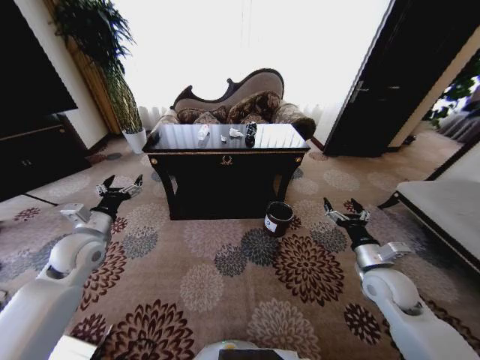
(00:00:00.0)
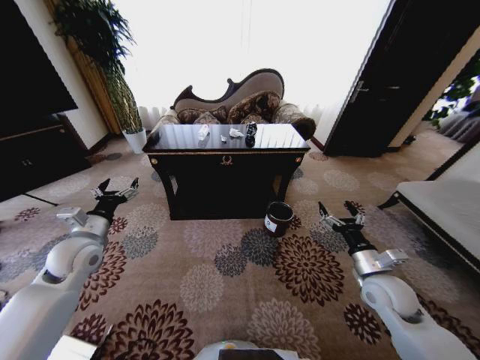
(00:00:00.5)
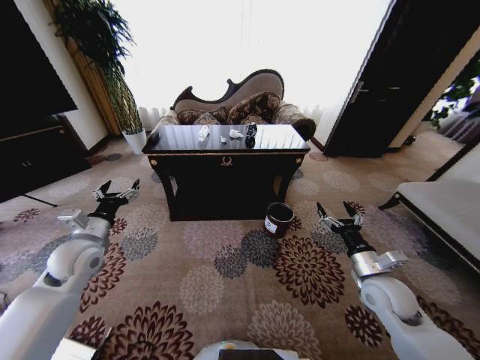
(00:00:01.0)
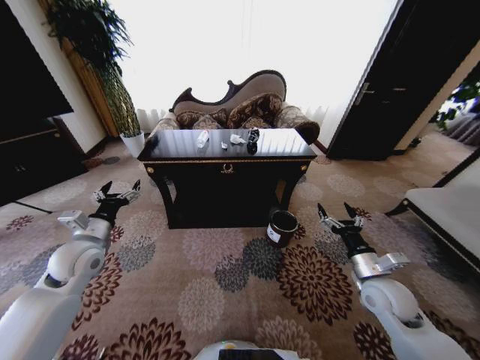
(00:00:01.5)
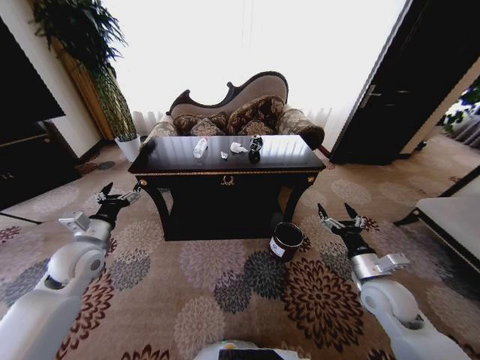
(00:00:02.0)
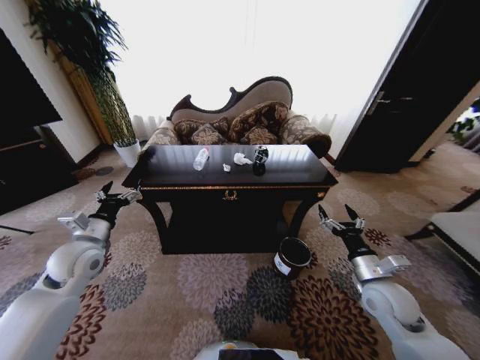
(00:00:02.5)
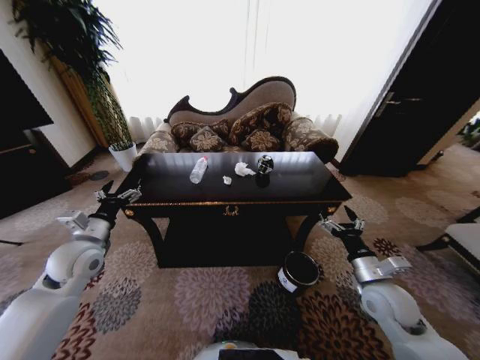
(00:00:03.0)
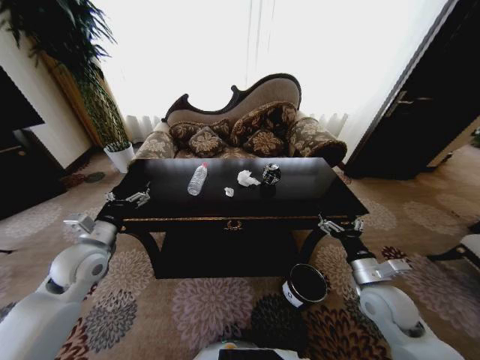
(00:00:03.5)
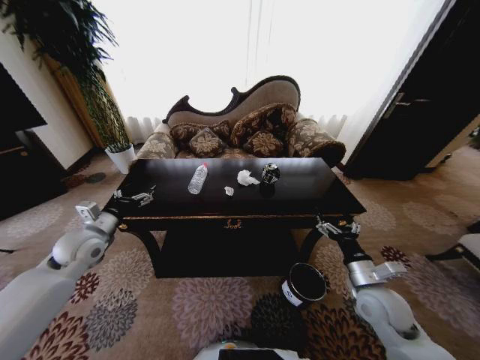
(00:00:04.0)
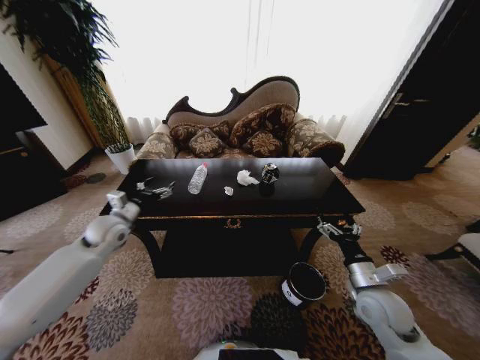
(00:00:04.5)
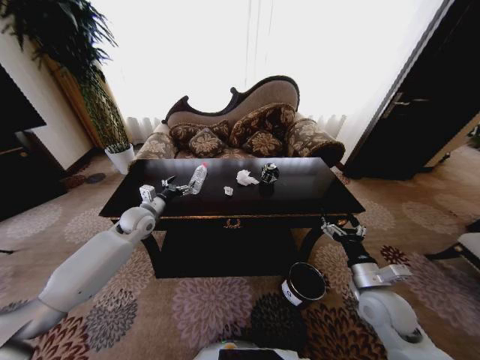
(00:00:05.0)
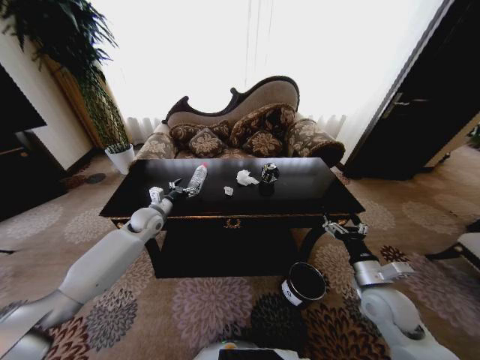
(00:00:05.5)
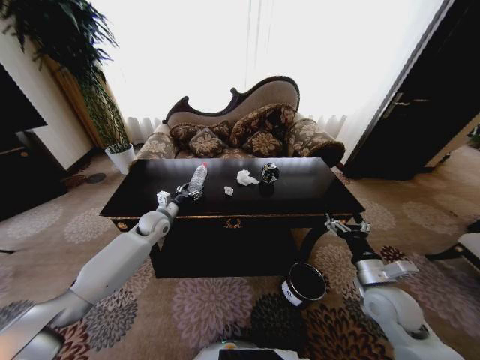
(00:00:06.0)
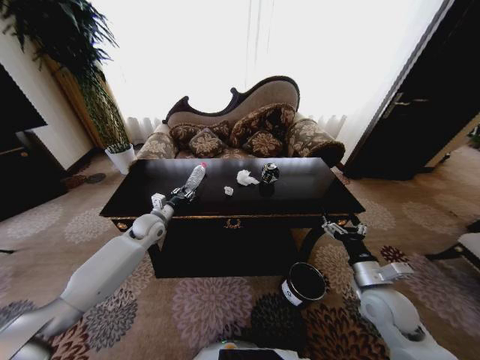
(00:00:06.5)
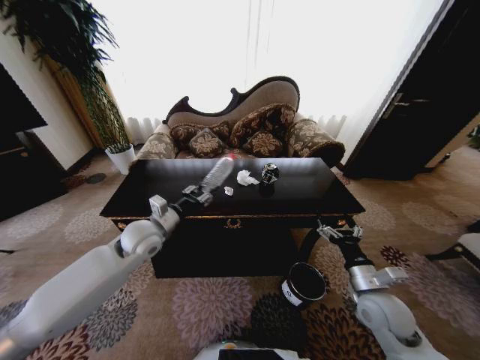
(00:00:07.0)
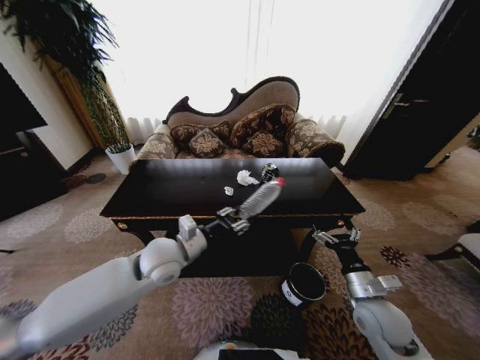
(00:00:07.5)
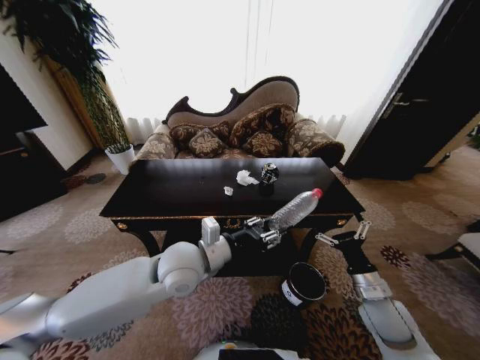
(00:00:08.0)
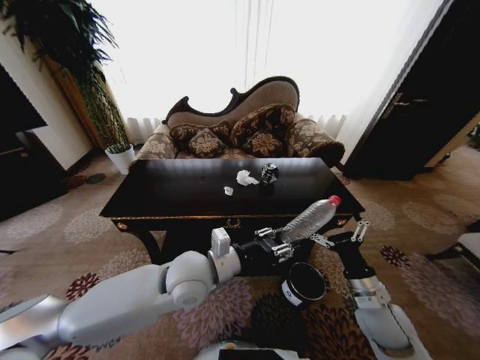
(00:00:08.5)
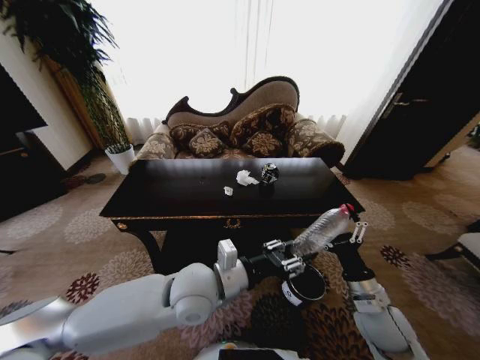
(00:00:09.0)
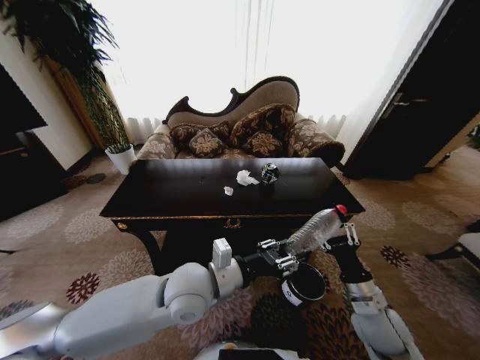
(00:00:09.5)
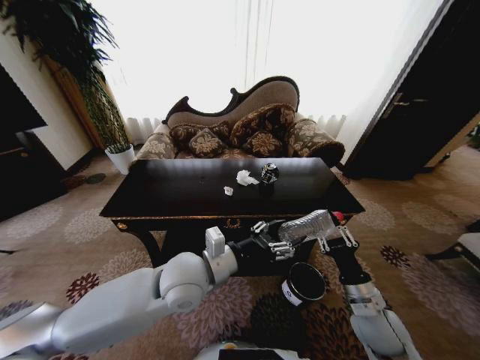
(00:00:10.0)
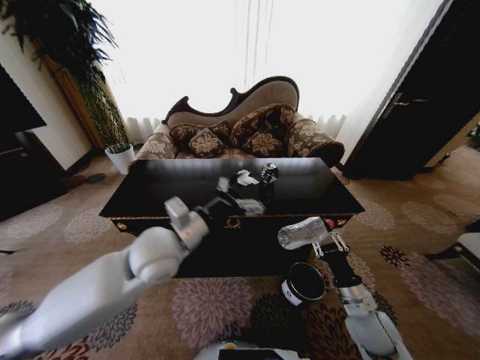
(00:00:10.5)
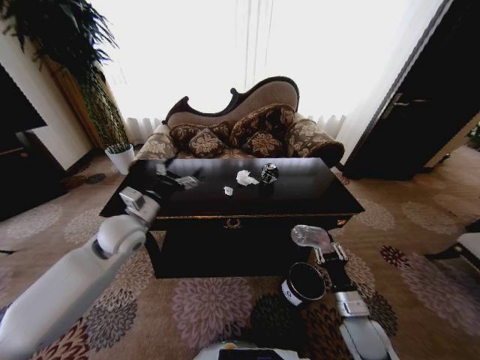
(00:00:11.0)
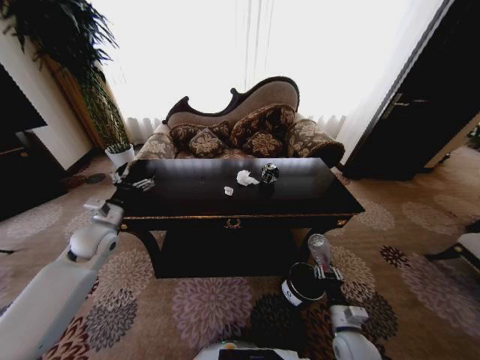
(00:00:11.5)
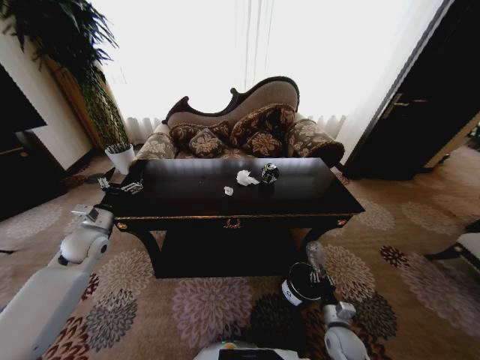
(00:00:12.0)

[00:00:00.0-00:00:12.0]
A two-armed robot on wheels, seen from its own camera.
Task of the whole recording: Move to the front of the table and place the trash on the table into the trash bin.
00:00:04.0 to 00:00:06.0: The left gripper shifts approximately 20 cm forward, to the right and downward, and closes.
00:00:06.0 to 00:00:08.0: The left gripper moves backward, to the right and upward, some 30 cm, and closes its fingers.
00:00:08.0 to 00:00:10.0: The left gripper opens. The right gripper closes its fingers.
00:00:10.0 to 00:00:12.0: The right gripper heads downward, covering about 20 cm; the left gripper is displaced to the left by some 30 cm, and opens up.

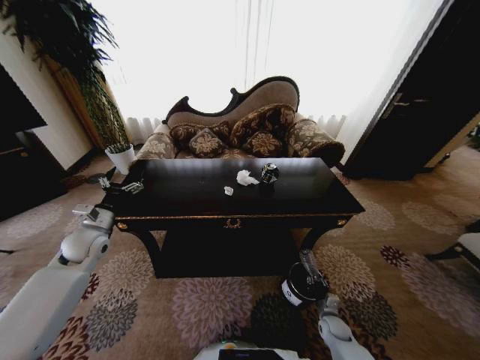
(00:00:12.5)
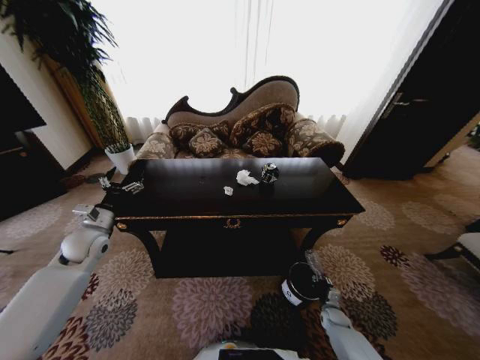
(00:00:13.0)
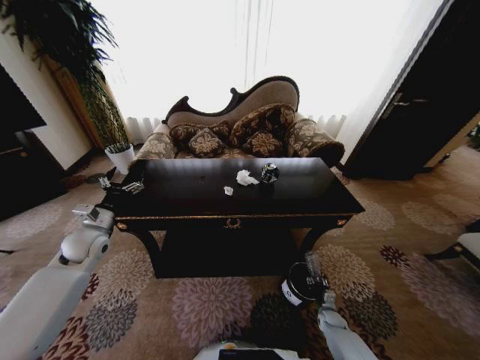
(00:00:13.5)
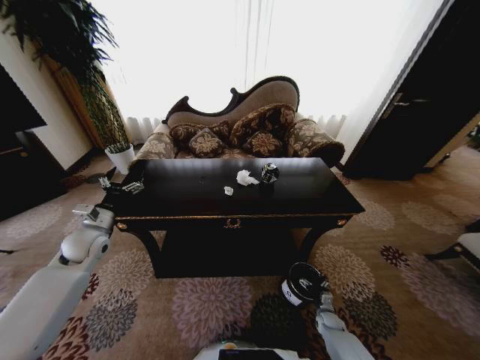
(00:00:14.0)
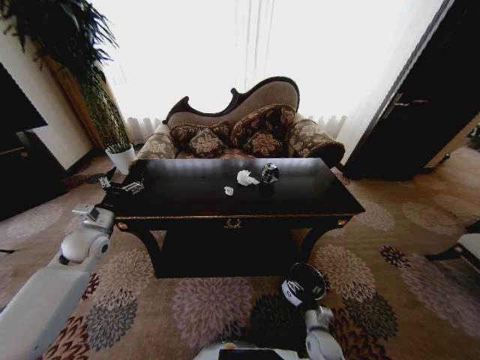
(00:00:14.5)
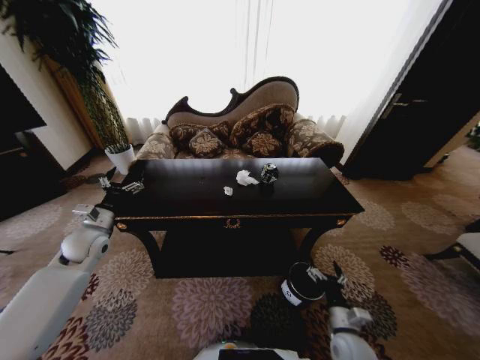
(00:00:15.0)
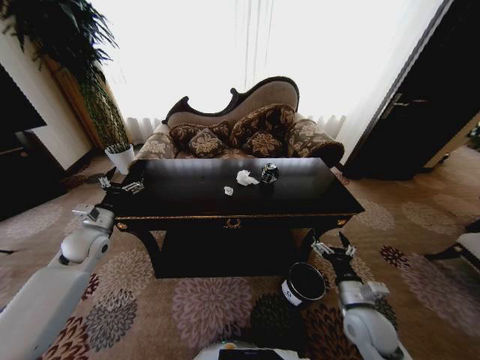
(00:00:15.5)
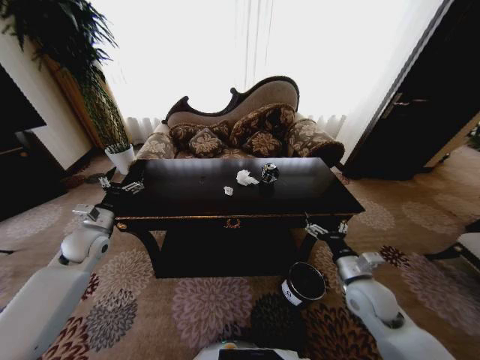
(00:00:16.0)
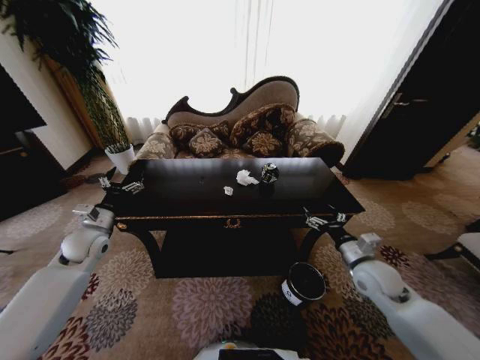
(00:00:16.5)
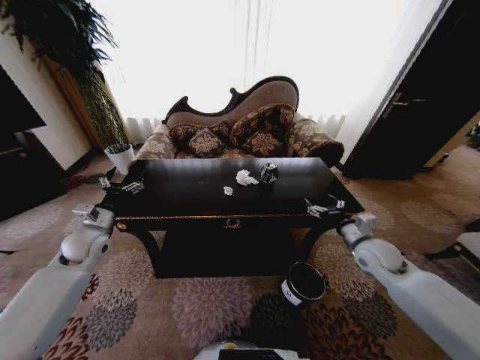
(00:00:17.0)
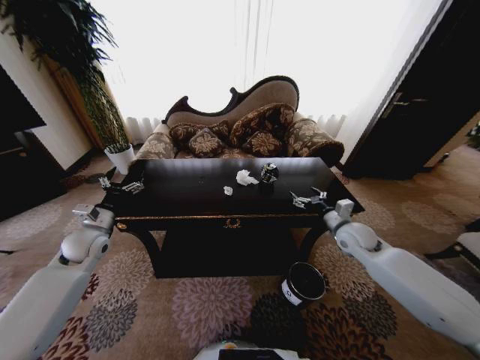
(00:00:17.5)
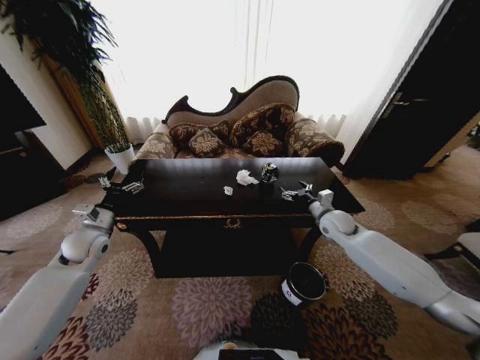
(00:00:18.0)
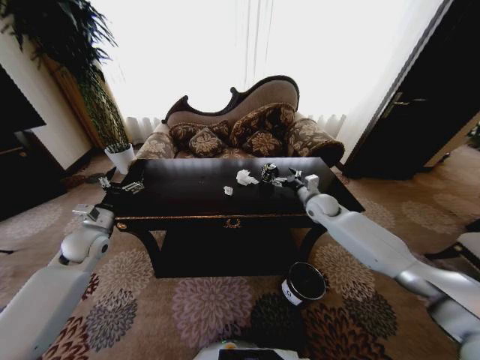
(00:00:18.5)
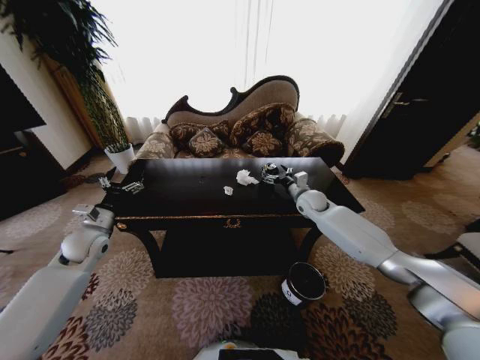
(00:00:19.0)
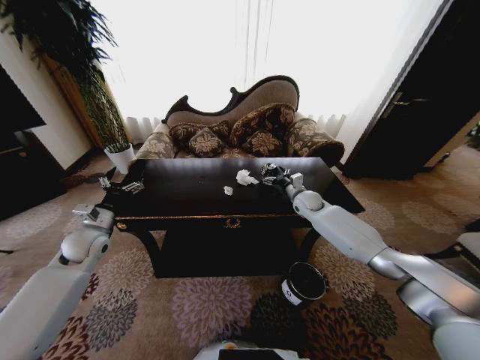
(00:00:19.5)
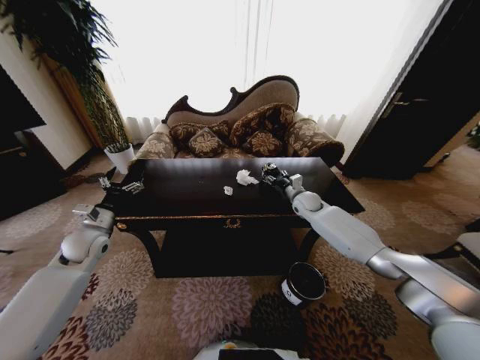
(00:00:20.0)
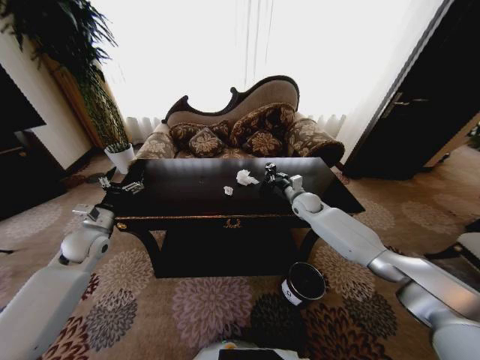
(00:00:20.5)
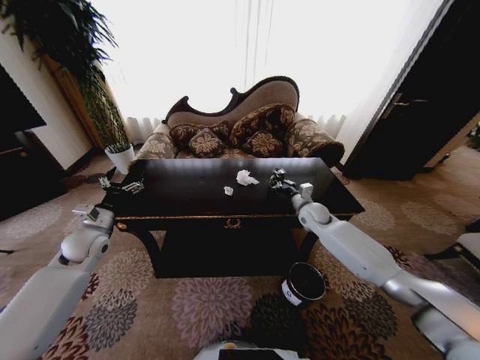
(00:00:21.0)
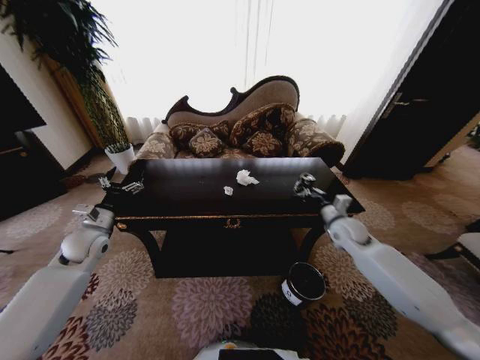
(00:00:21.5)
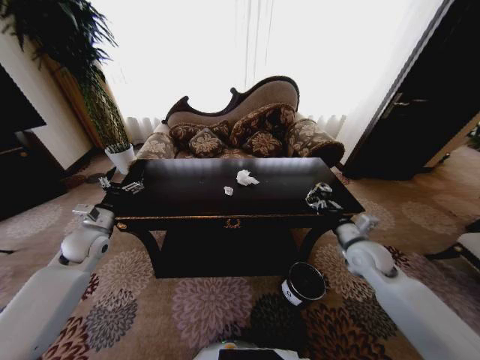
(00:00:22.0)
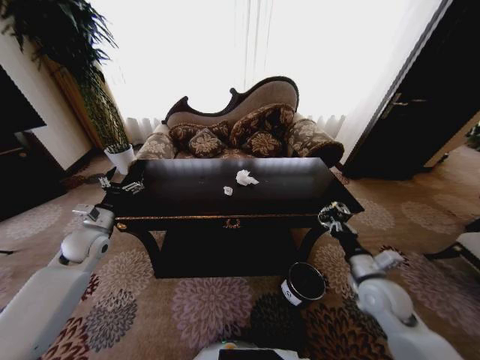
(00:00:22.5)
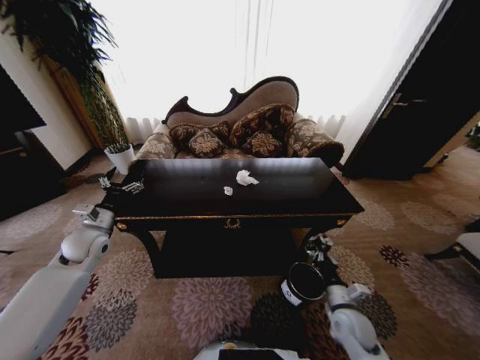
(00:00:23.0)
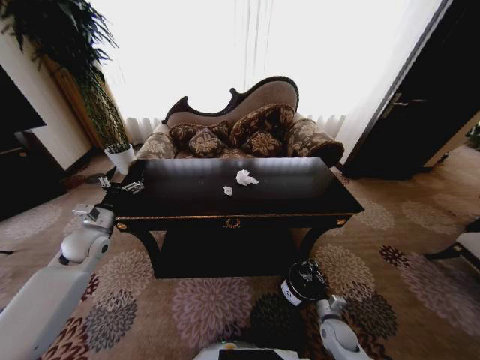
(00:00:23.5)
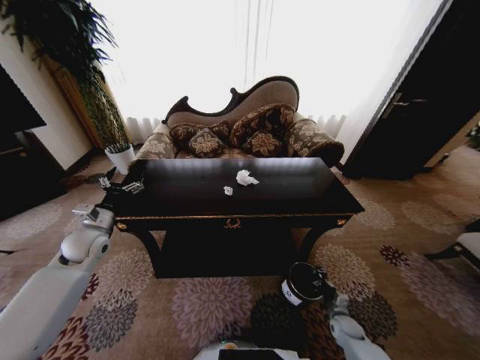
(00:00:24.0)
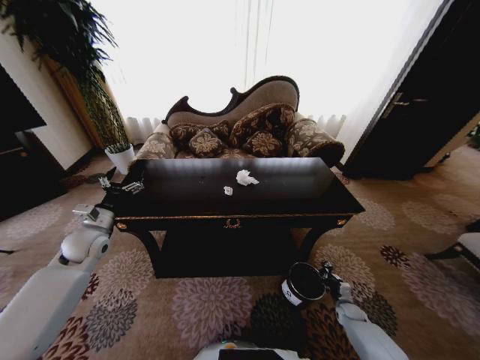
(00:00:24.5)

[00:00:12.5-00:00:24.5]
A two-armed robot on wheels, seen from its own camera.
Task of the whole recording: Move to the front of the table and place the trash on the table into the trash bin.
00:00:12.5 to 00:00:14.5: The right gripper goes approximately 5 cm to the left, and opens its fingers.
00:00:14.5 to 00:00:16.5: The right gripper shifts roughly 30 cm upward.
00:00:16.5 to 00:00:18.5: The right gripper is displaced forward by approximately 25 cm.
00:00:18.5 to 00:00:20.5: The right gripper shifts by about 5 cm, and closes its fingers.
00:00:20.5 to 00:00:22.5: The right gripper goes about 30 cm backward.
00:00:22.5 to 00:00:24.5: The right gripper heads downward, covering roughly 30 cm.

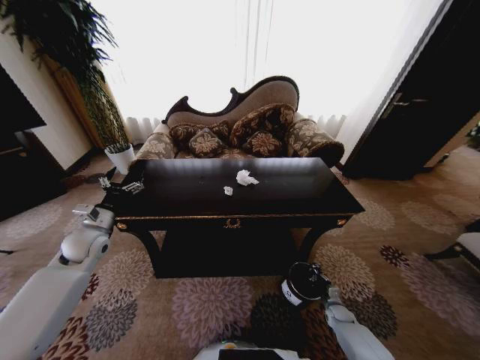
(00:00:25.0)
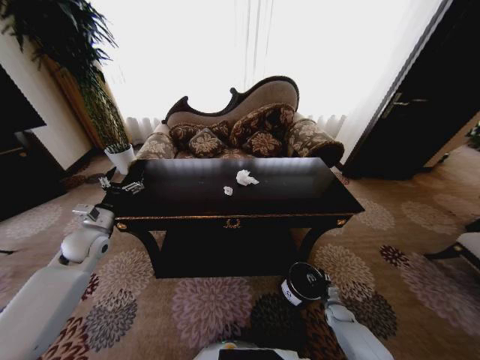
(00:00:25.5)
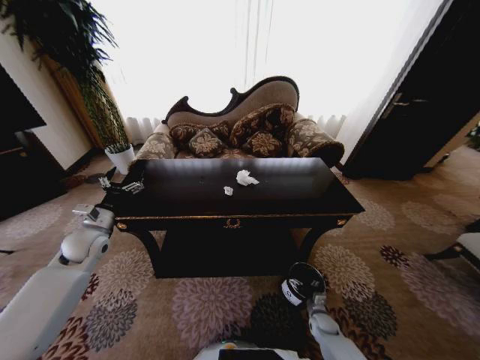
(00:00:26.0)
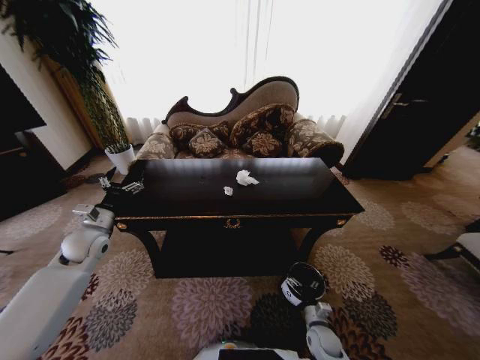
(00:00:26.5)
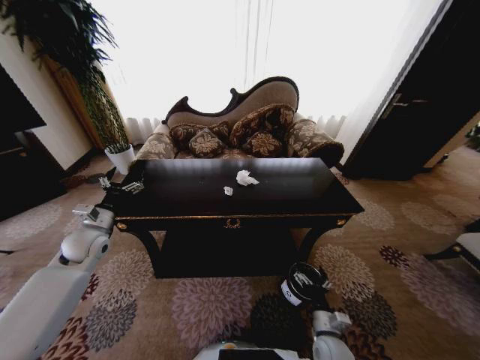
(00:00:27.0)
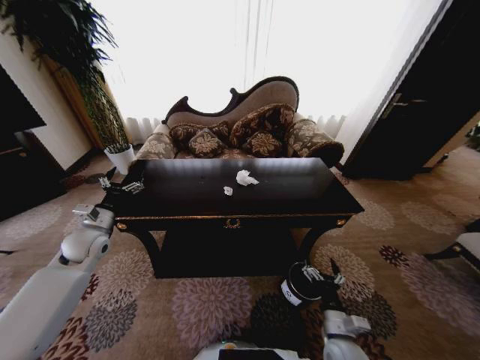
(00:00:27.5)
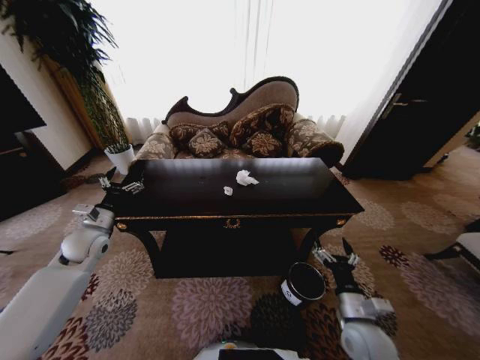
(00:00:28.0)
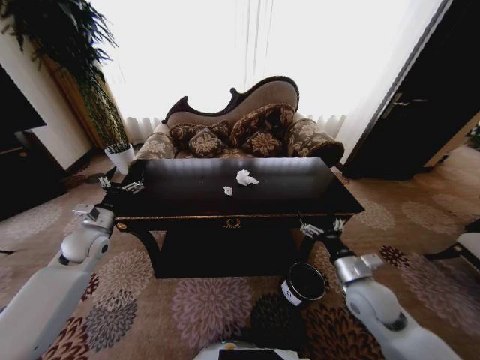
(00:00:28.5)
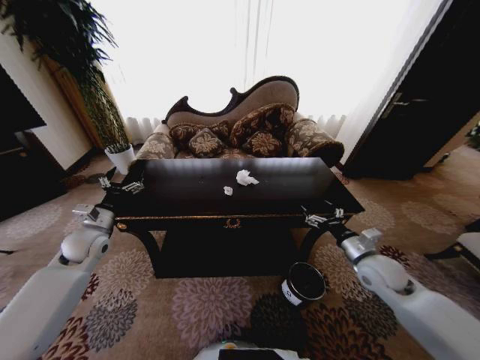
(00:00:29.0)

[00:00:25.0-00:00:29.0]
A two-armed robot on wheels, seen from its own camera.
Task of the whole recording: Move to the front of the table and place the trash on the table into the trash bin.
00:00:25.0 to 00:00:27.0: The right gripper shifts some 25 cm to the left, upward and backward, and opens.
00:00:27.0 to 00:00:29.0: The right gripper is displaced upward, forward and to the right by about 25 cm.
